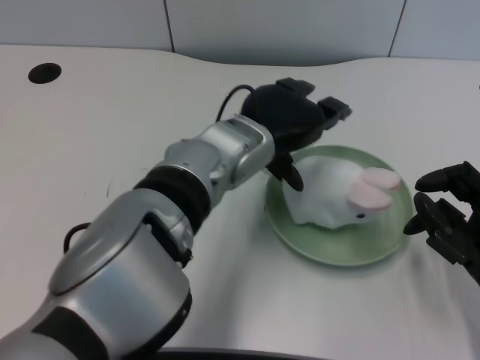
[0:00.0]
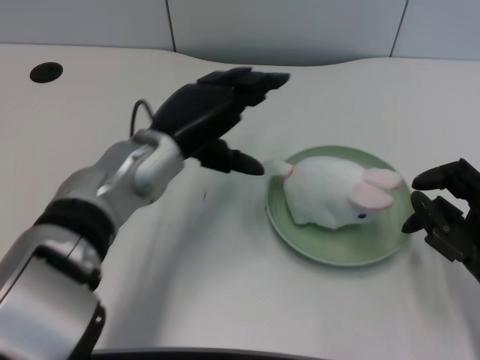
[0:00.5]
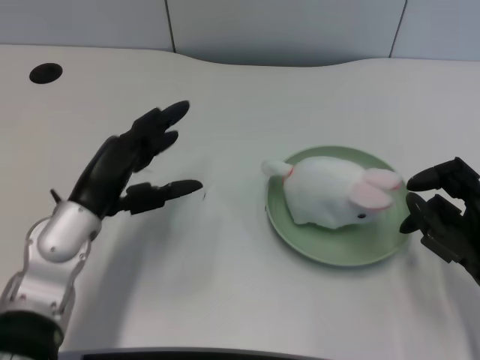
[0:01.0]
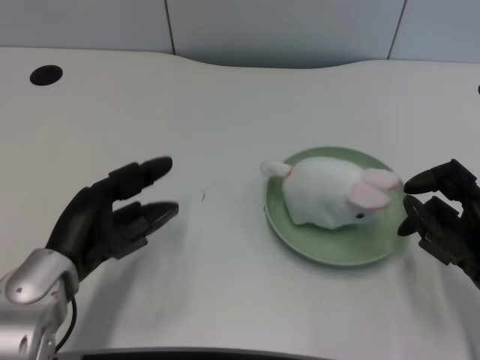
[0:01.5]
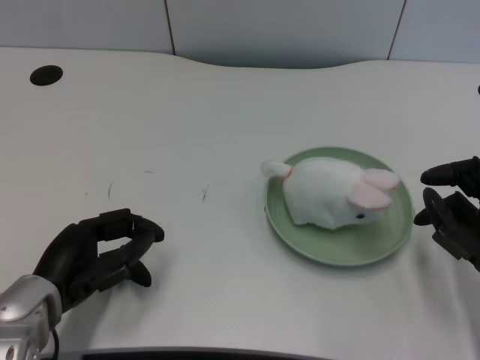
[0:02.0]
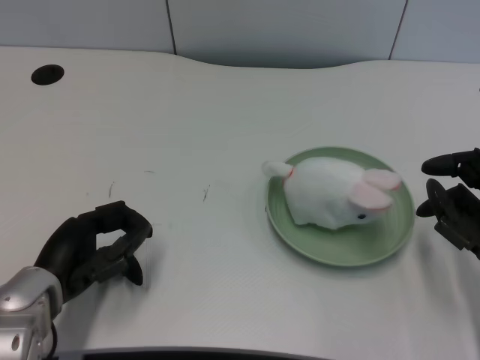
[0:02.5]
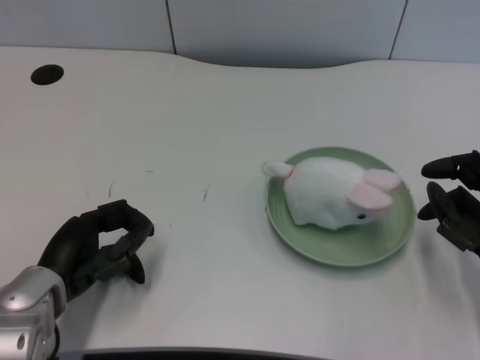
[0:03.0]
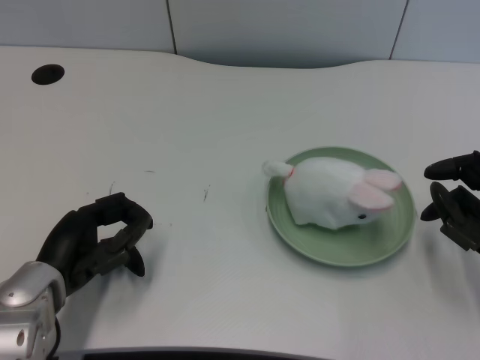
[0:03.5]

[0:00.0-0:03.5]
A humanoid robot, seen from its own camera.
Task of the whole recording: pick up the rabbit doll from the table and place it on the plate.
0:00.0 to 0:02.0: The left hand shifts some 25 cm to the left, downward and backward.
0:02.0 to 0:03.5: The hands stay close to where they were, moving slightly.

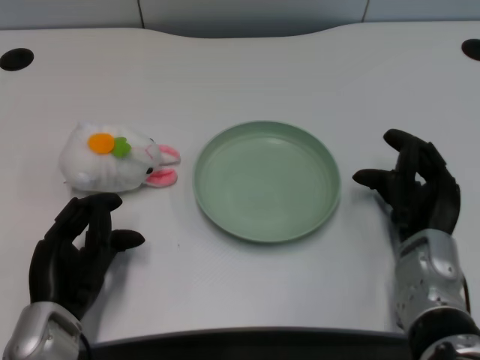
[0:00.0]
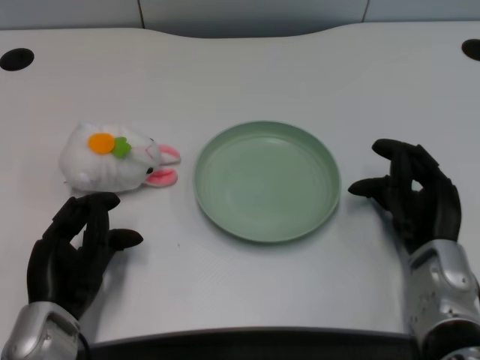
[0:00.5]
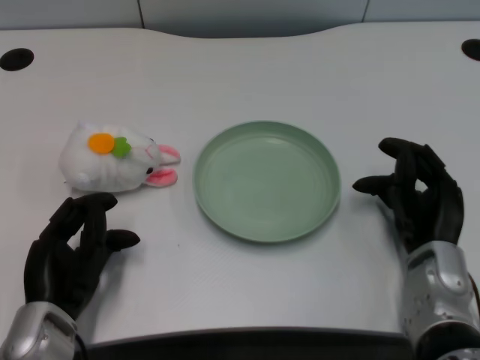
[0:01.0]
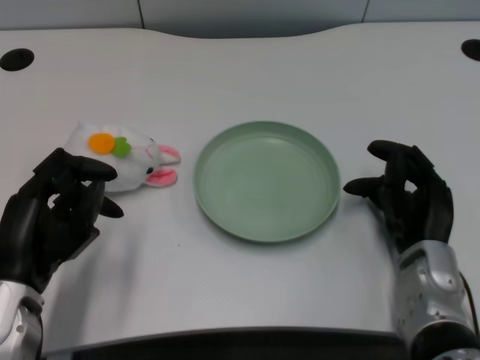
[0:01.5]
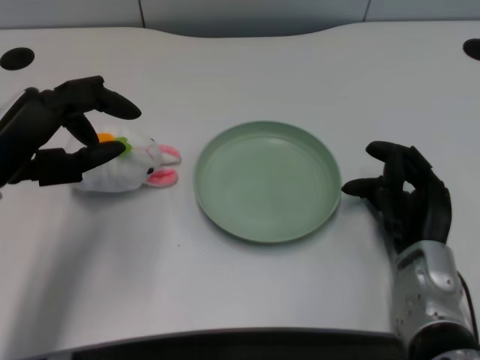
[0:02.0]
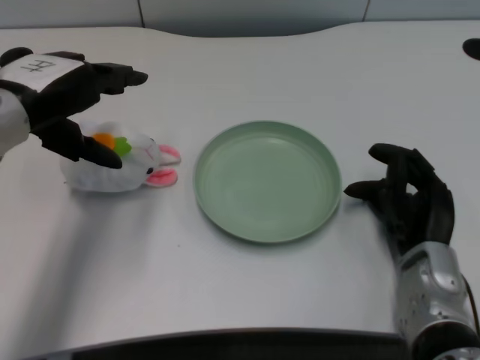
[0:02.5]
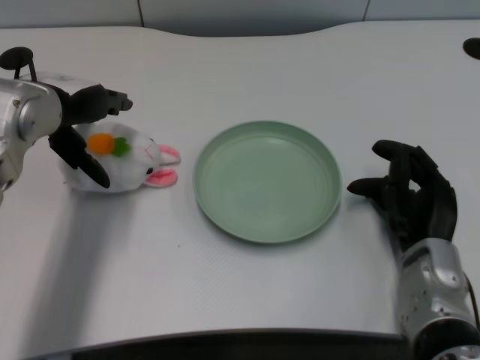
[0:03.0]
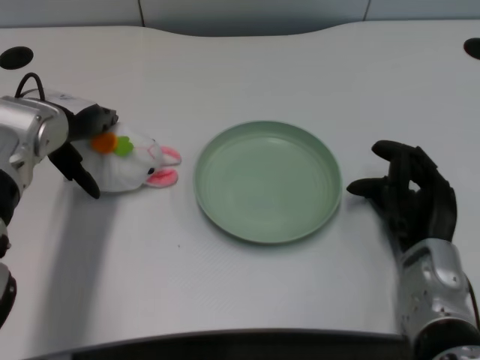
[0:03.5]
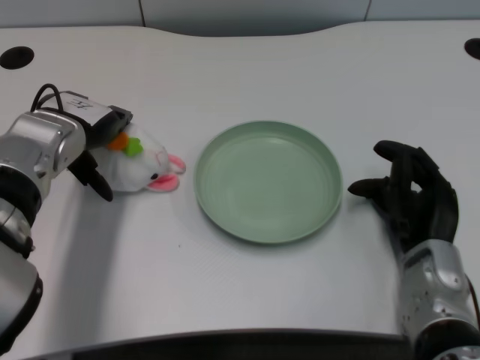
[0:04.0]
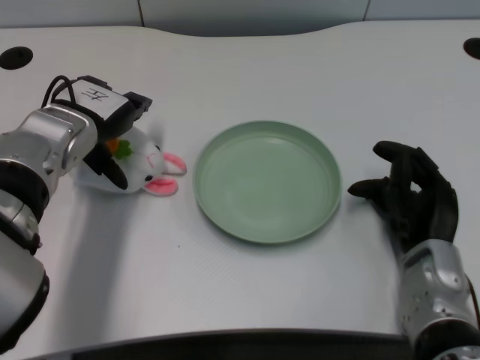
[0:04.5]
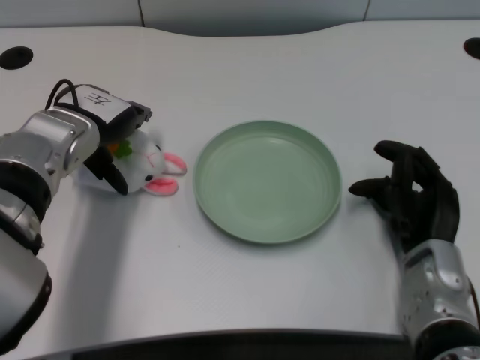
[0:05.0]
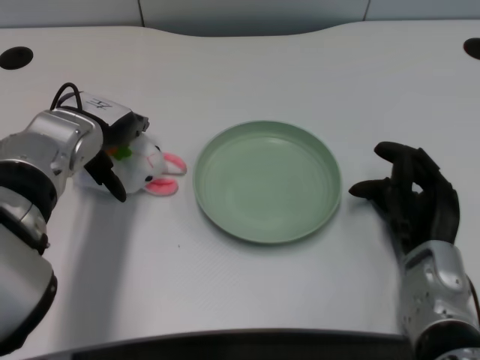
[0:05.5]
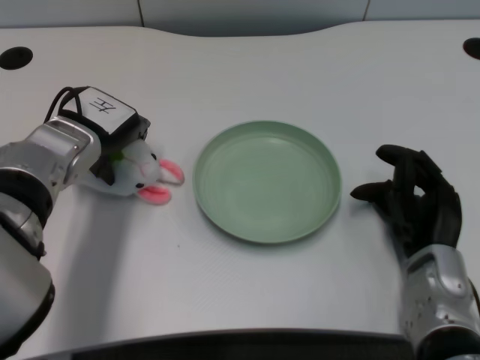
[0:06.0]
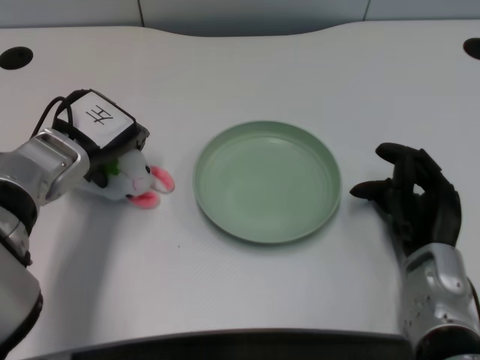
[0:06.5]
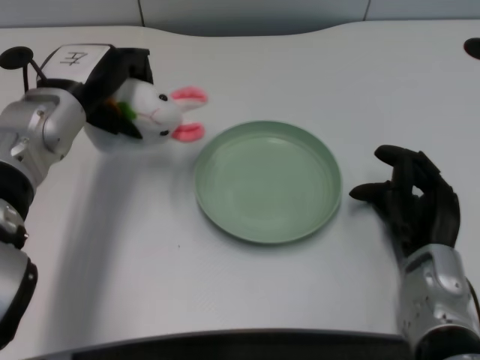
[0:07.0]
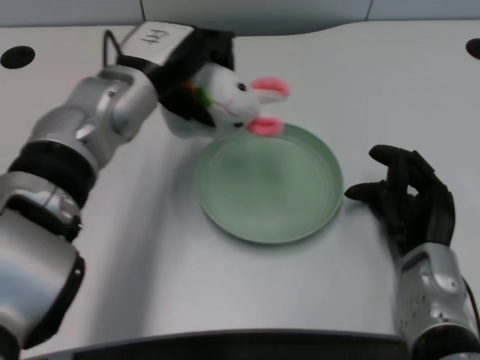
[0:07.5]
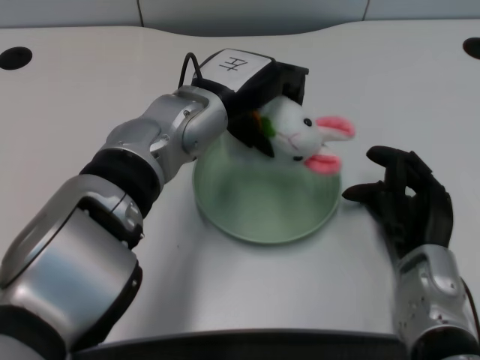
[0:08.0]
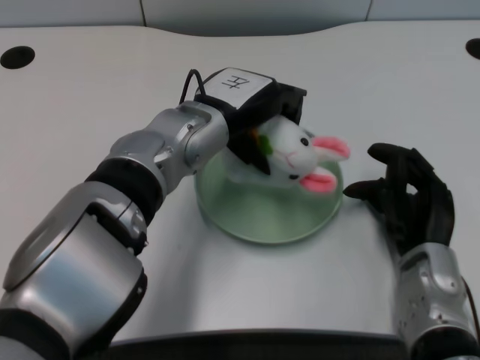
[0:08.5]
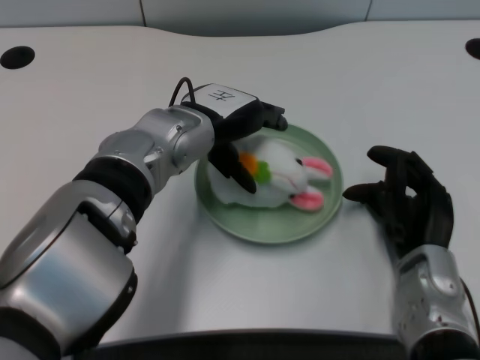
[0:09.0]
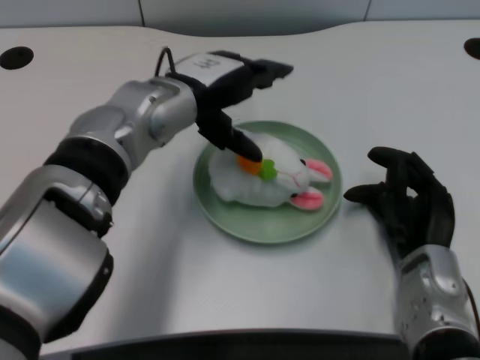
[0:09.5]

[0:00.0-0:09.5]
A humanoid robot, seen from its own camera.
Task of the whole recording: pick up the rabbit doll from the table and place it on the plate.
Step, 0:01.5 to 0:06.5: Grasp the rabbit doll with the left gripper.
Step, 0:07.0 to 0:09.0: Place the rabbit doll into the plate with the left gripper.
0:02.0 to 0:04.0: The left hand is displaced forward by approximately 10 cm.
0:04.0 to 0:05.5: The hands move only a little.
0:05.5 to 0:07.5: The left hand goes some 5 cm to the right.

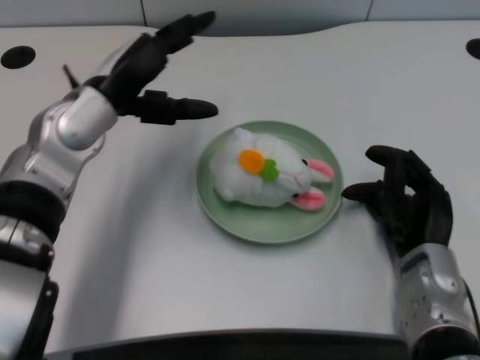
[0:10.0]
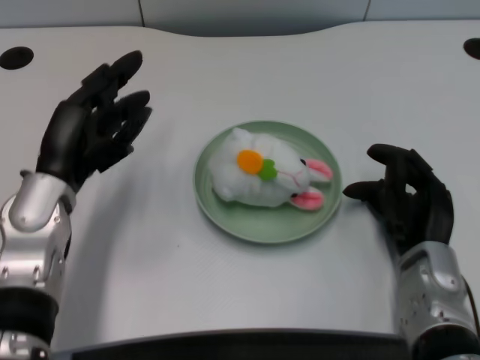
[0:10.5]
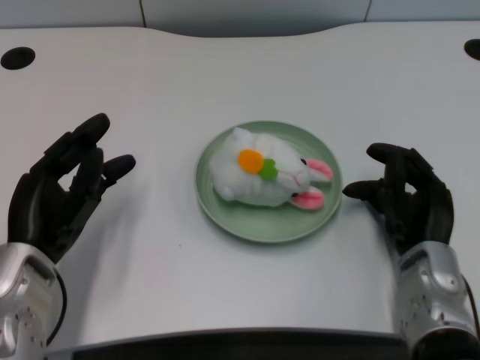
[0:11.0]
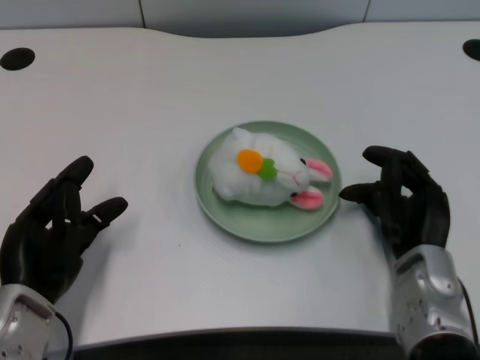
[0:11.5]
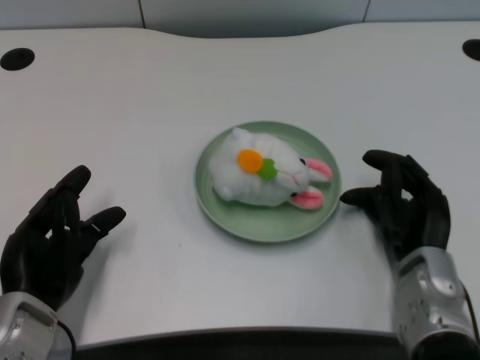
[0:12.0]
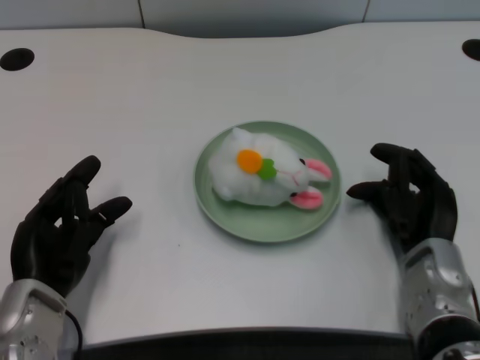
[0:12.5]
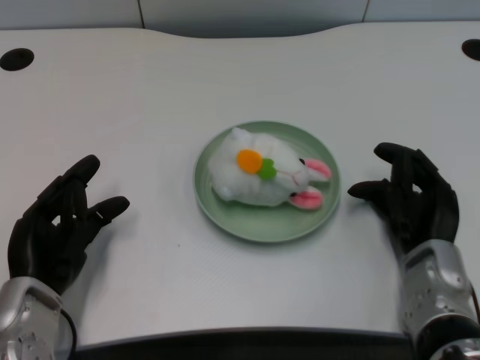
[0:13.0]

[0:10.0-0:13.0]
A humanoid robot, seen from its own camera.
Task of the whole recording: pick up the rabbit doll from the table and place it on the plate.
0:10.0 to 0:11.5: The left hand is displaced backward and downward by roughly 15 cm.
0:11.5 to 0:13.0: The hands stay close to where they were, moving slightly.

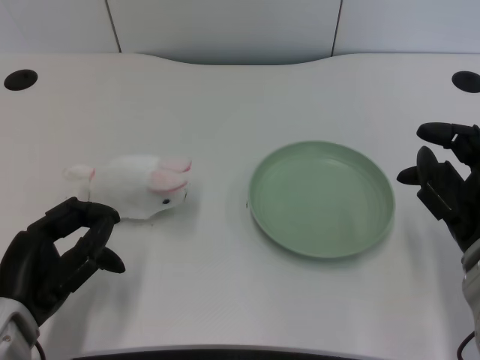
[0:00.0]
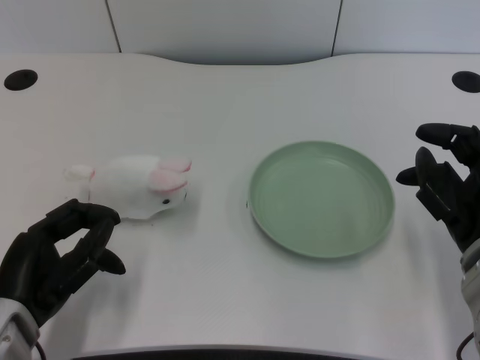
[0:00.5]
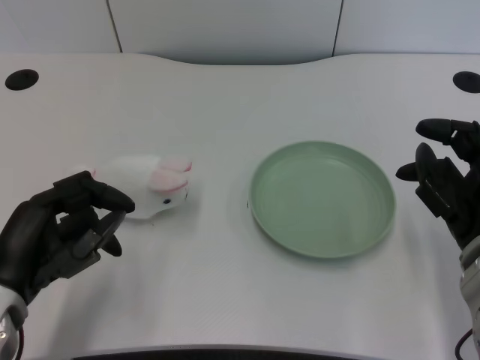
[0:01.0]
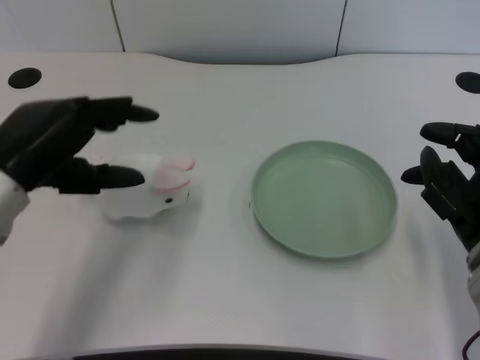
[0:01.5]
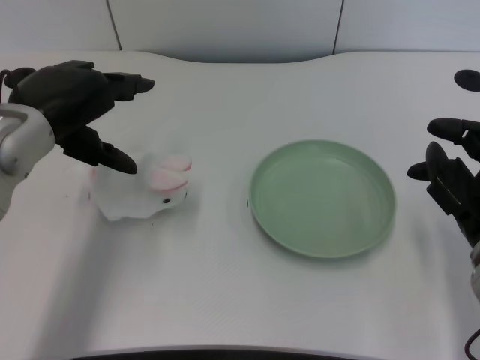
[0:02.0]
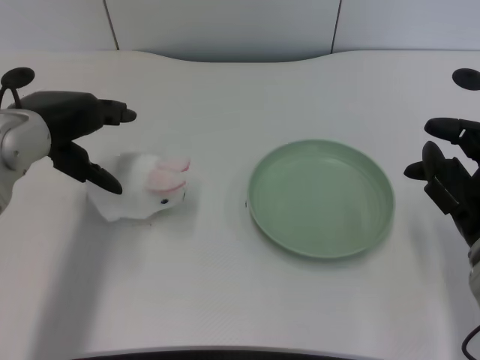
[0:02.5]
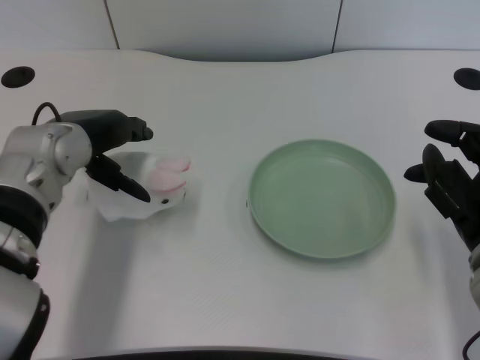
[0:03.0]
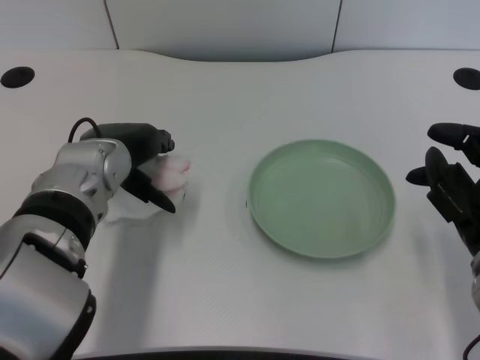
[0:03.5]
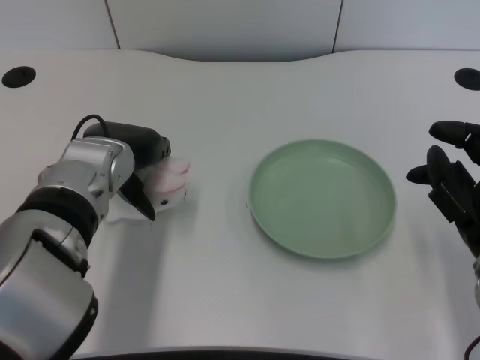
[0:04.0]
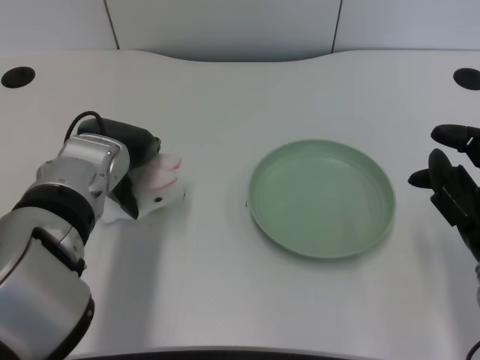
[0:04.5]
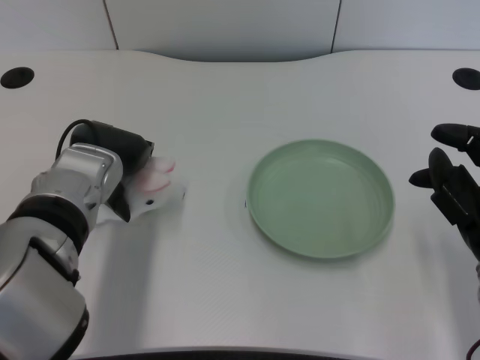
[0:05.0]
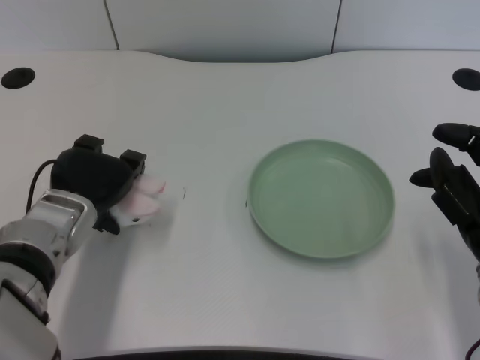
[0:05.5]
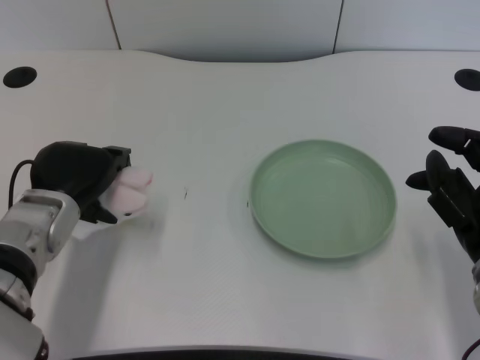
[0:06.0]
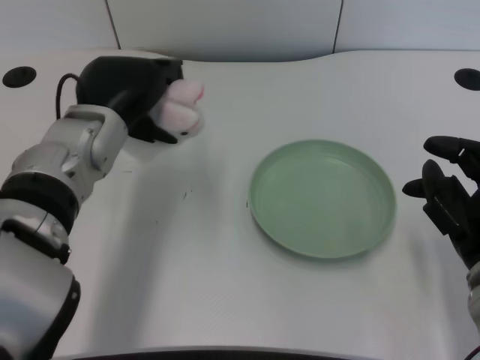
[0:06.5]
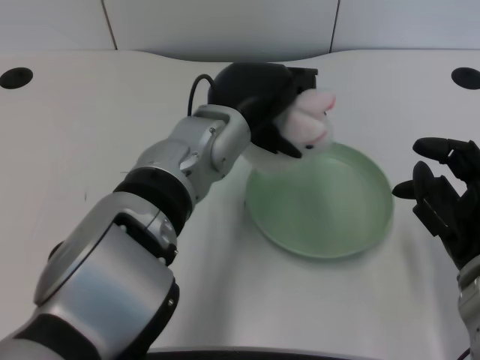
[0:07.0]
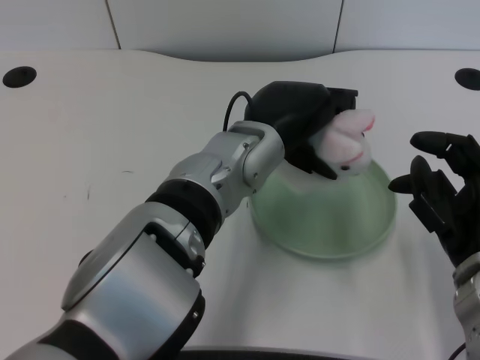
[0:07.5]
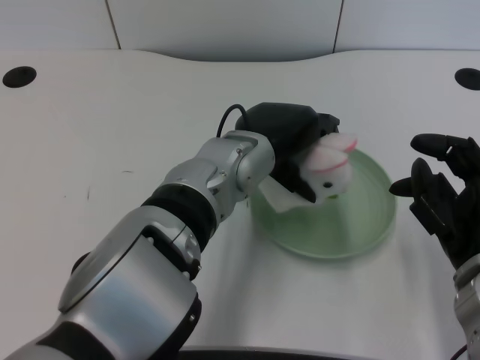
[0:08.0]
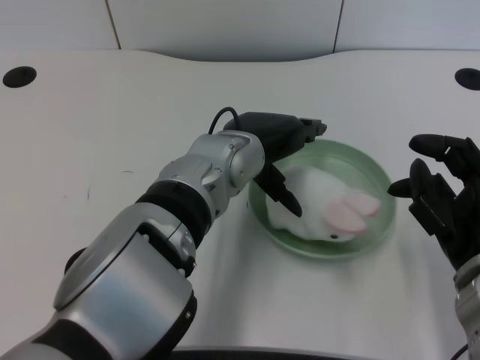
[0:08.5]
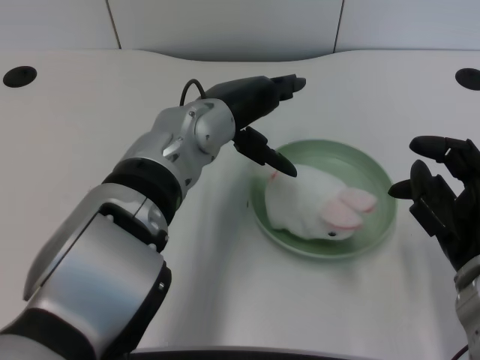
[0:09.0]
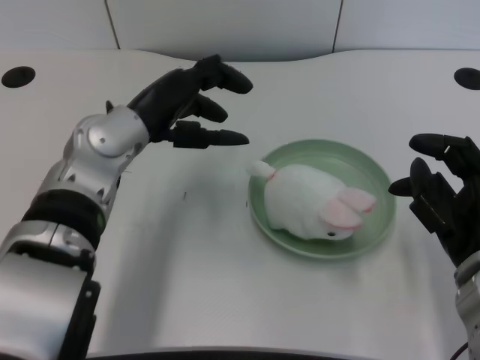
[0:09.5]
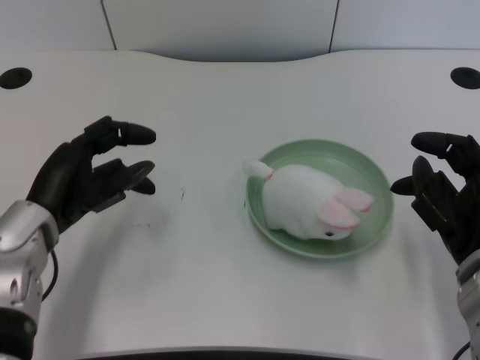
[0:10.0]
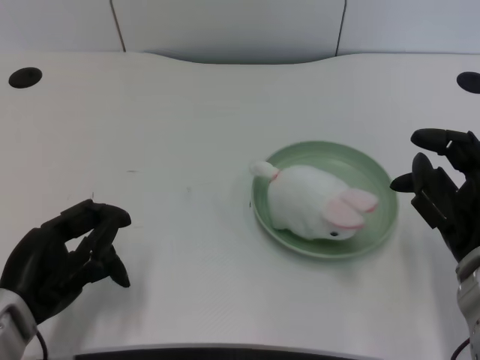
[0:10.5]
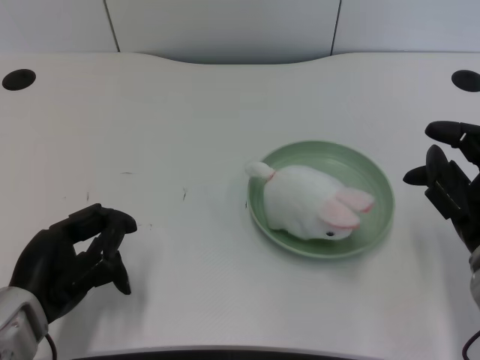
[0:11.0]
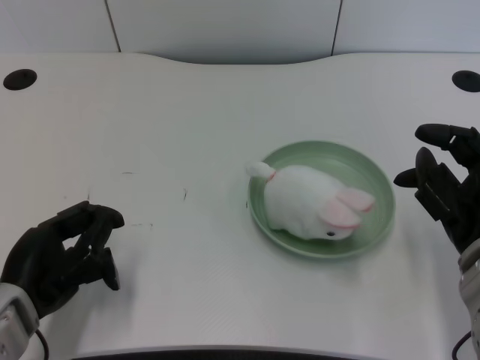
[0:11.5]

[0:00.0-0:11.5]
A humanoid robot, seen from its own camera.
Task of the whole recording: pick up the rabbit doll from the table and place it on the plate.
Step, 0:01.0 to 0:06.0: Grasp the rabbit doll with the left gripper.
Step, 0:06.5 to 0:08.0: Place the rabbit doll into the plate with the left gripper.
0:02.0 to 0:04.0: The left hand is displaced to the right and downward by about 10 cm.
0:04.0 to 0:06.0: The left hand heads to the left, covering roughly 5 cm.
0:06.0 to 0:07.5: The left hand is displaced to the right by roughly 20 cm.
0:07.5 to 0:09.5: The left hand shifts about 15 cm to the left.
0:09.5 to 0:11.5: The left hand travels backward, to the left and downward by some 20 cm.
